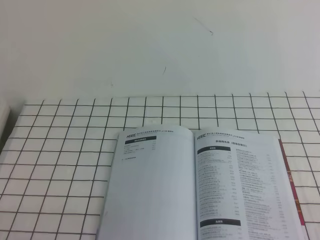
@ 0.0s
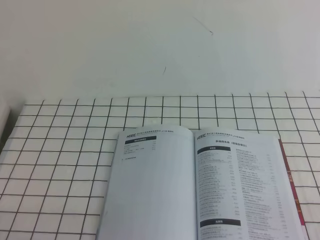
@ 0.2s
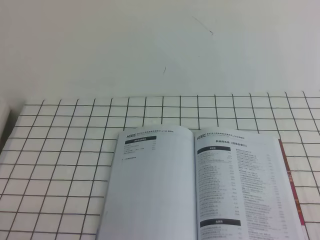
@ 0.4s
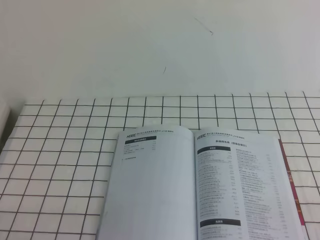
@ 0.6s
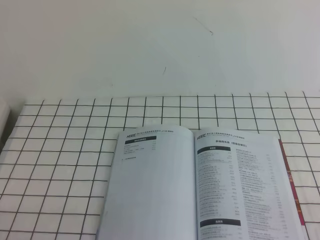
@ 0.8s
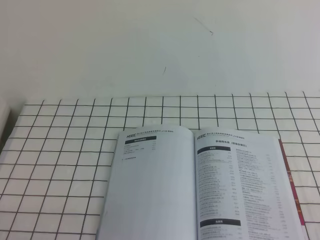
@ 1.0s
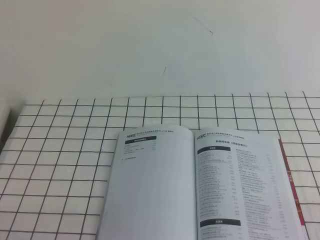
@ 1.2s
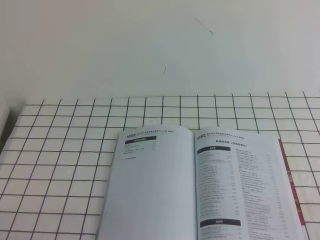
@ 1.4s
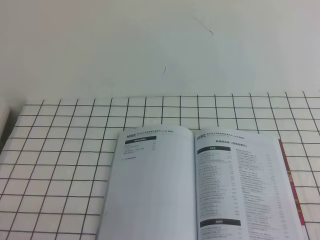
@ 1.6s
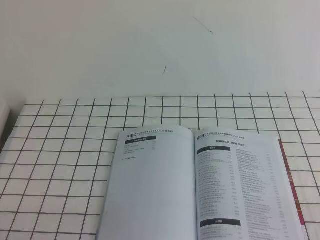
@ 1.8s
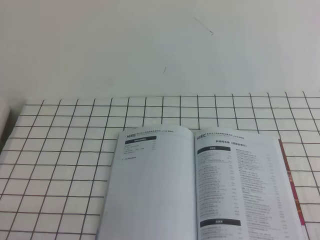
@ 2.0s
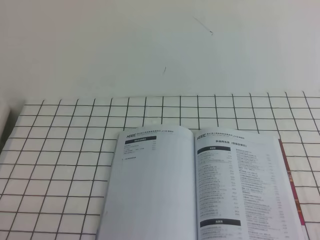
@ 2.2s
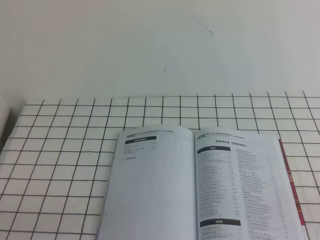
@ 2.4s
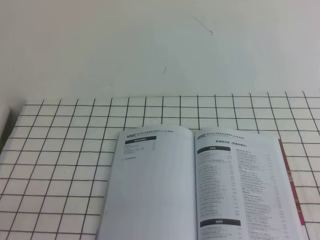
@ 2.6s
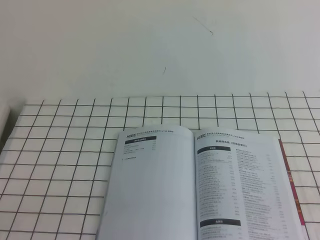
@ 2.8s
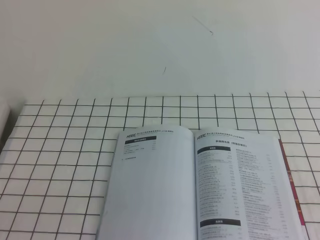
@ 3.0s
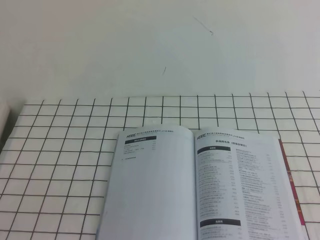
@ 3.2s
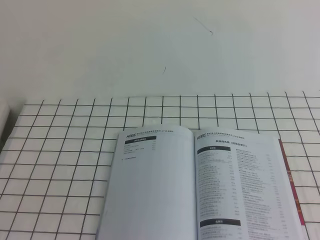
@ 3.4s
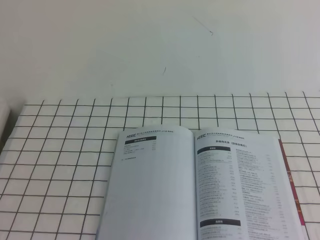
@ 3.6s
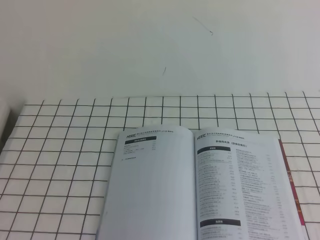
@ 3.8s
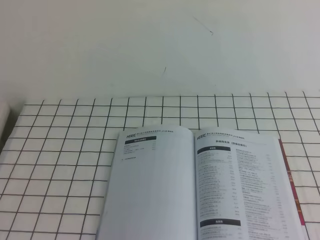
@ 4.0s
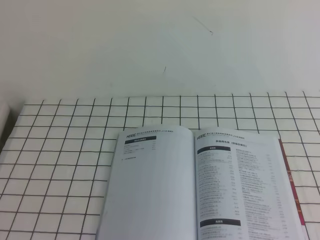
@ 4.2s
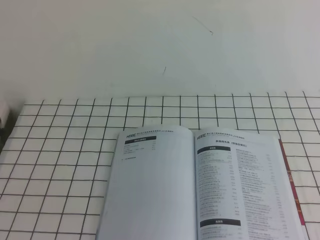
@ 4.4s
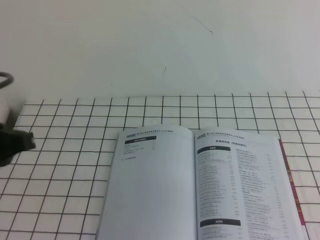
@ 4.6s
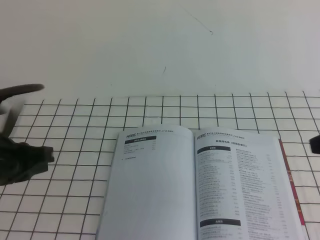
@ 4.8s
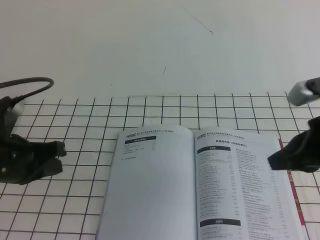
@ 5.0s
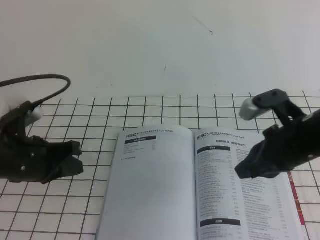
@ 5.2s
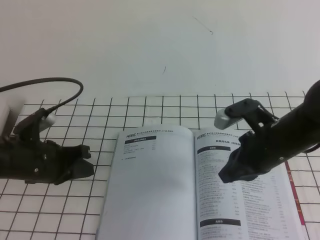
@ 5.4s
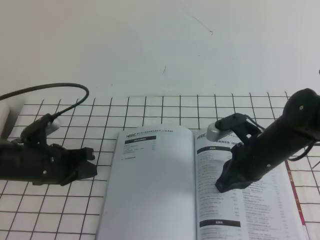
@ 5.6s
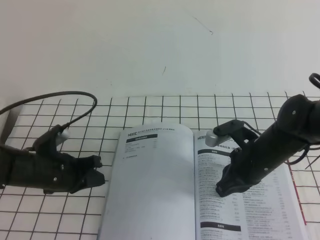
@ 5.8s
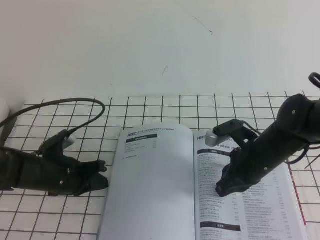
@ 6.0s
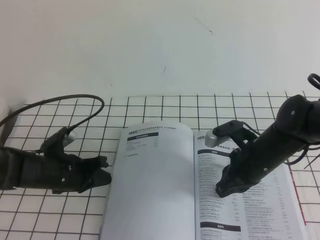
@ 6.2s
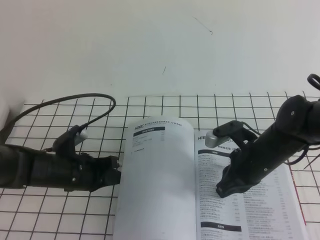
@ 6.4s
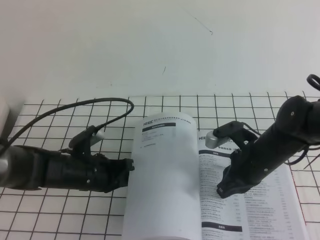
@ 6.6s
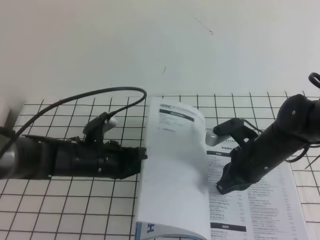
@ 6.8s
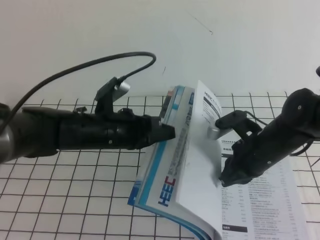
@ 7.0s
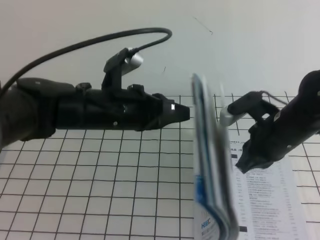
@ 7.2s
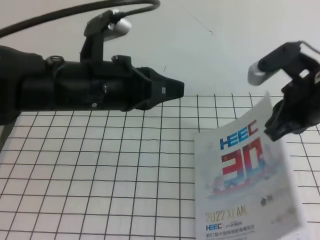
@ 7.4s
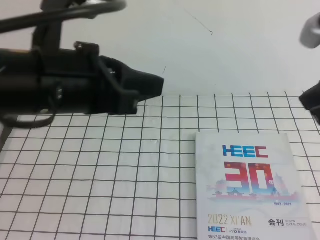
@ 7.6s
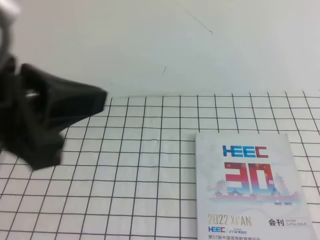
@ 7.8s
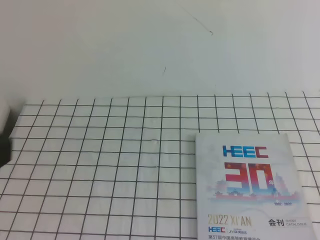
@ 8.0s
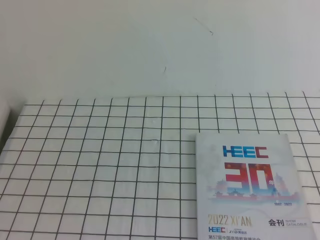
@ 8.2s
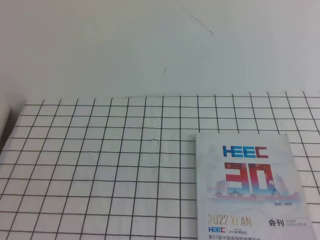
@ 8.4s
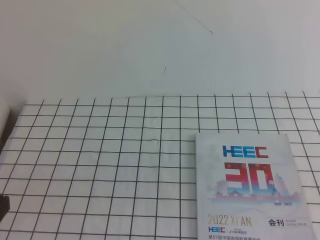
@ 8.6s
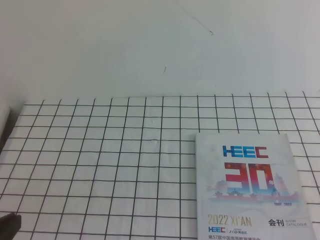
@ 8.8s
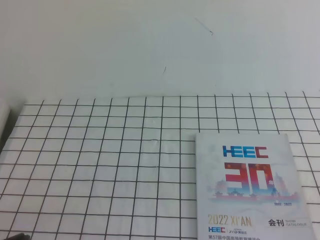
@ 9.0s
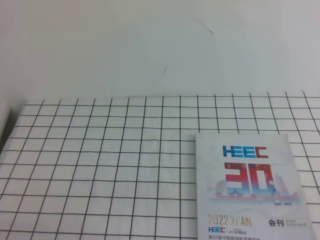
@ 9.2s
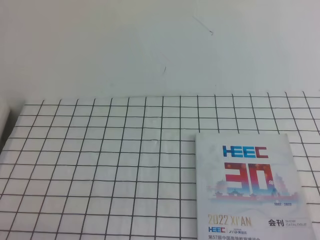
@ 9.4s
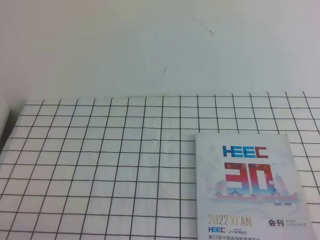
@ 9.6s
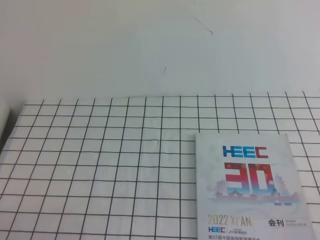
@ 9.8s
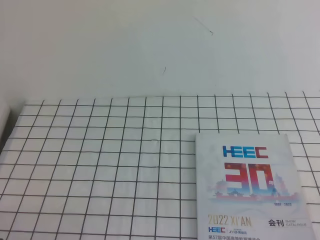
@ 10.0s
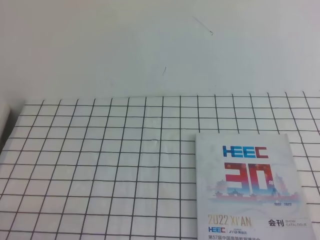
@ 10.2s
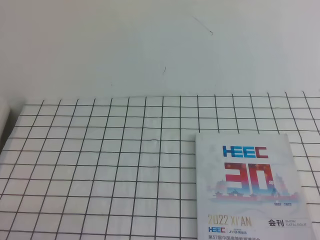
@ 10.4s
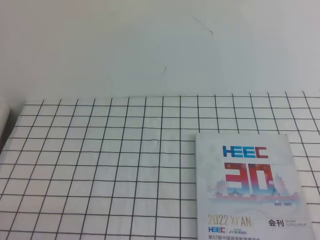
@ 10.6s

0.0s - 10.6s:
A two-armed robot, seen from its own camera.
Task of the whole recording: on the white tablecloth, hold the book with one hand and close it with the other.
0.0s - 1.6s: Both grippers stay put.
3.0s - 4.6s: The left gripper moves forward and upward, roughly 20 cm.
4.6s - 6.0s: The left gripper goes some 25 cm downward and forward. The right gripper moves downward, to the left and forward, about 30 cm.
6.0s - 7.6s: Both grippers move upward, about 25 cm.
7.6s - 9.0s: The right gripper heads backward, downward and to the right, covering some 20 cm; the left gripper moves downward, backward and to the left, about 25 cm.

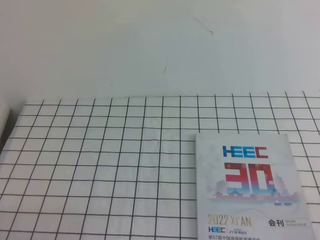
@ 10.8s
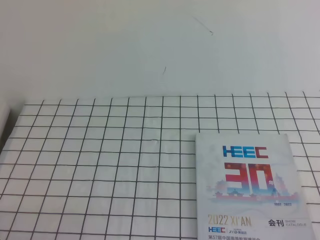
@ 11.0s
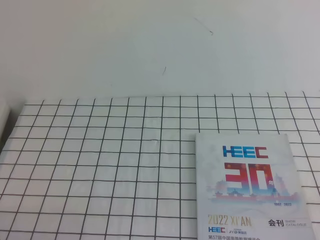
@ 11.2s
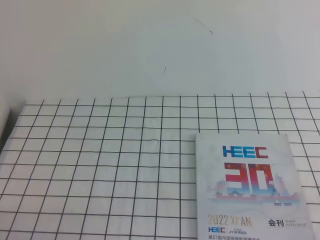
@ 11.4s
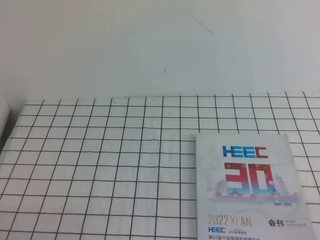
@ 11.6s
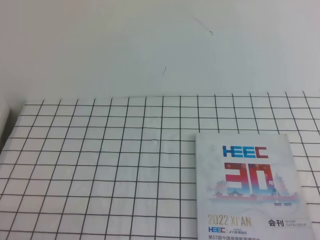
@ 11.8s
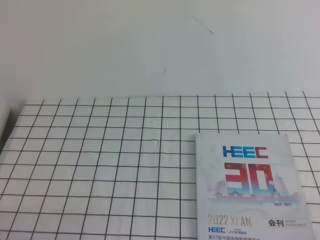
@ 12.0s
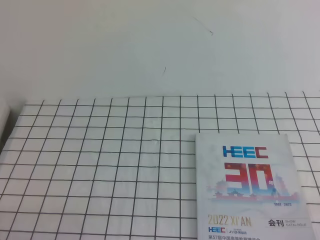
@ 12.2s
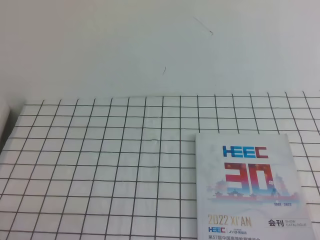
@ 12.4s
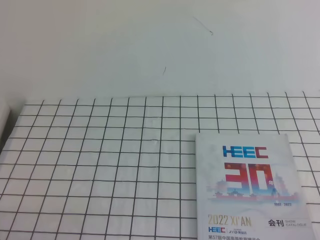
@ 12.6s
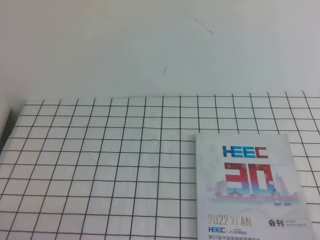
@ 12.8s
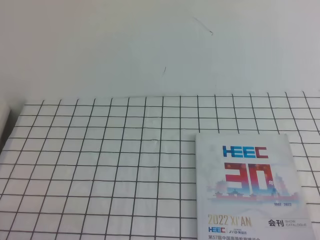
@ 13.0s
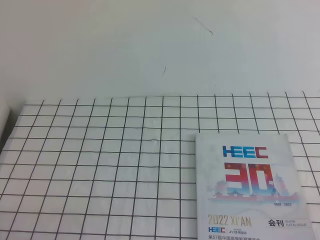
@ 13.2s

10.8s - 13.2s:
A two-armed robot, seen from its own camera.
Task of the whole recording: on the white tablecloth, hold the book with one hand and close it with the other.
12.0s - 13.2s: Neither gripper changes place.

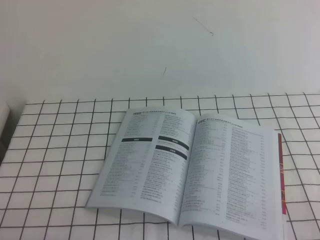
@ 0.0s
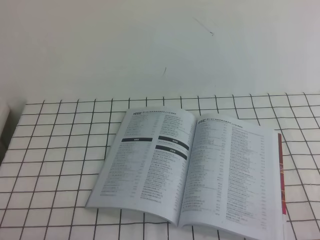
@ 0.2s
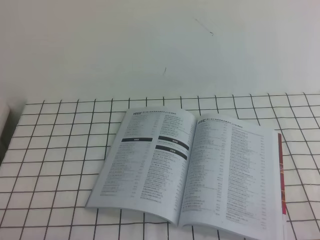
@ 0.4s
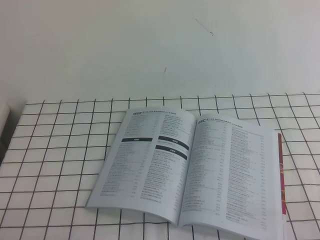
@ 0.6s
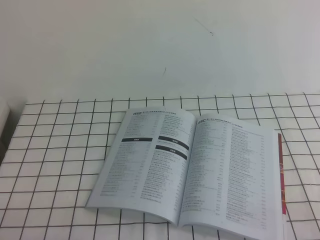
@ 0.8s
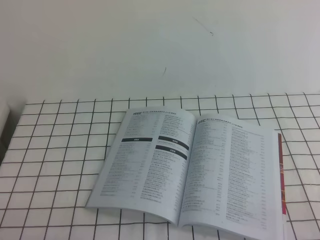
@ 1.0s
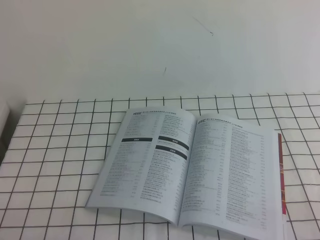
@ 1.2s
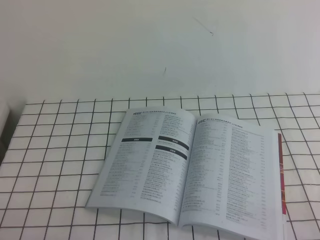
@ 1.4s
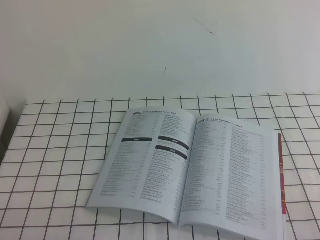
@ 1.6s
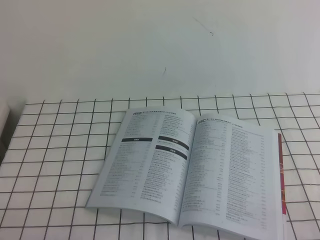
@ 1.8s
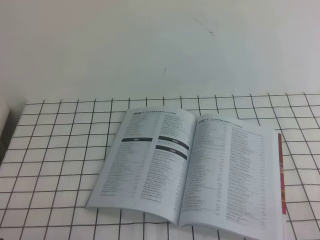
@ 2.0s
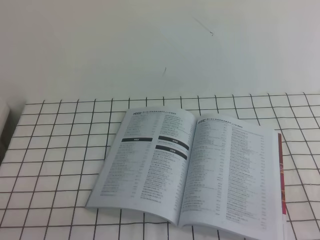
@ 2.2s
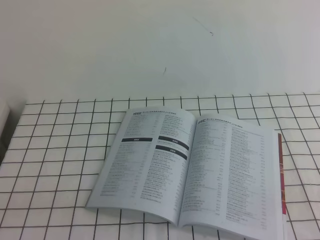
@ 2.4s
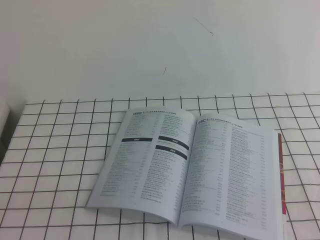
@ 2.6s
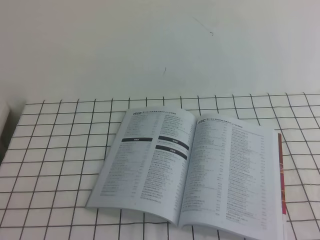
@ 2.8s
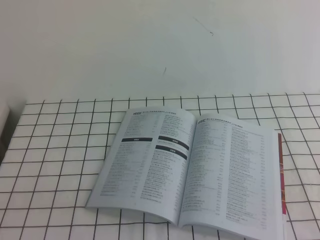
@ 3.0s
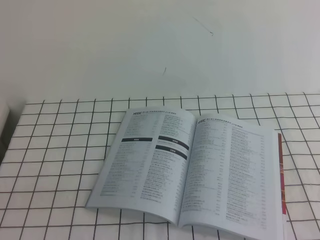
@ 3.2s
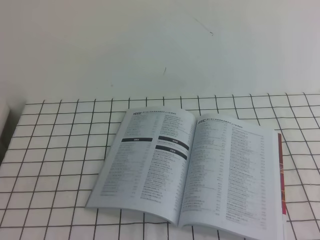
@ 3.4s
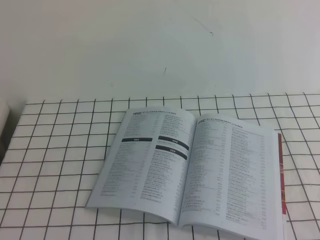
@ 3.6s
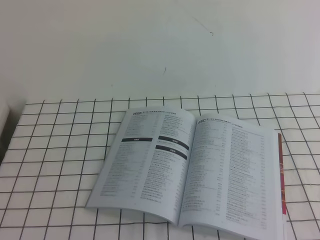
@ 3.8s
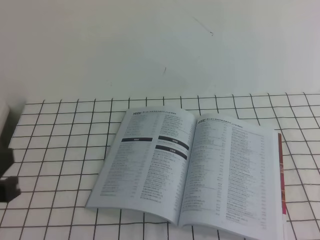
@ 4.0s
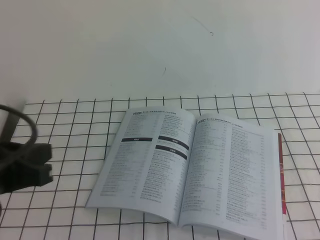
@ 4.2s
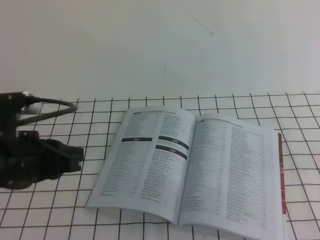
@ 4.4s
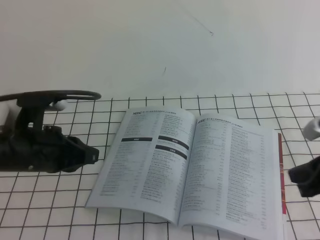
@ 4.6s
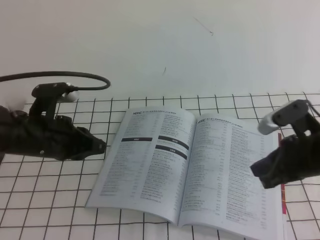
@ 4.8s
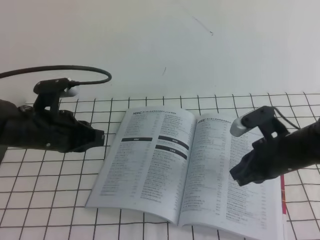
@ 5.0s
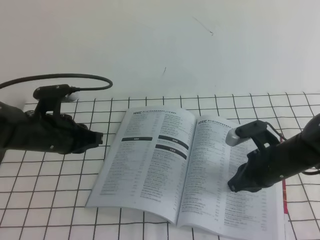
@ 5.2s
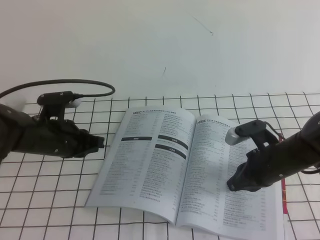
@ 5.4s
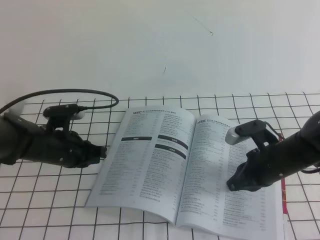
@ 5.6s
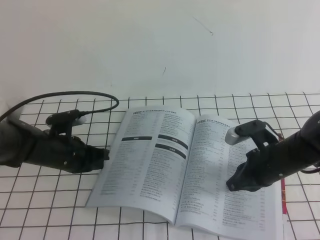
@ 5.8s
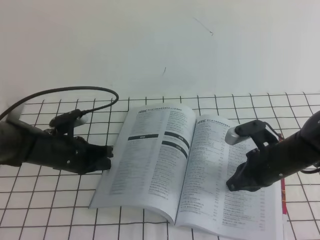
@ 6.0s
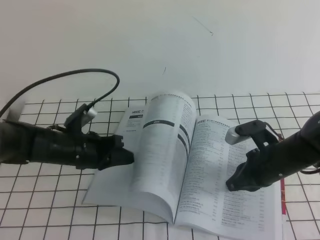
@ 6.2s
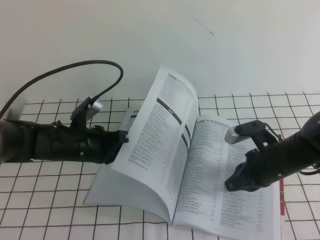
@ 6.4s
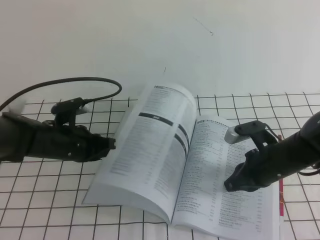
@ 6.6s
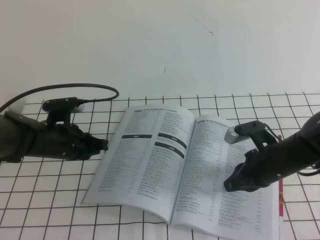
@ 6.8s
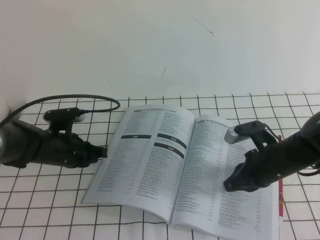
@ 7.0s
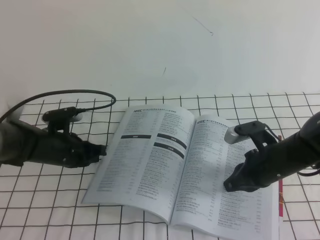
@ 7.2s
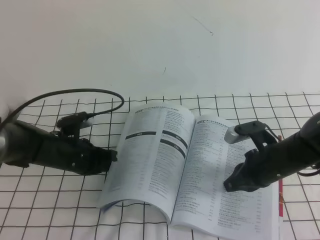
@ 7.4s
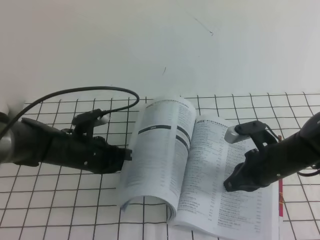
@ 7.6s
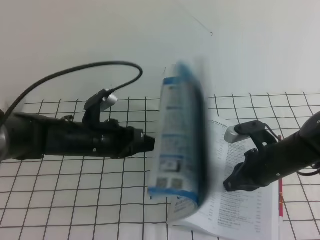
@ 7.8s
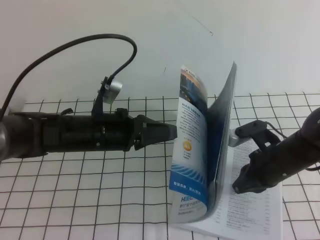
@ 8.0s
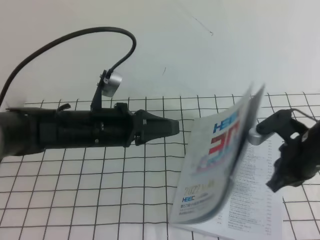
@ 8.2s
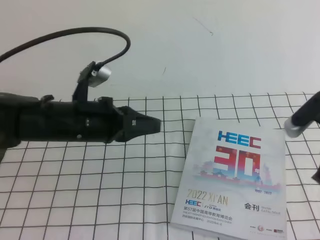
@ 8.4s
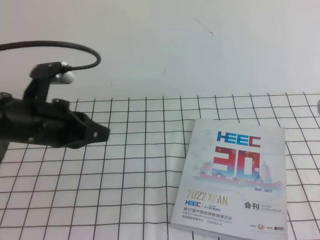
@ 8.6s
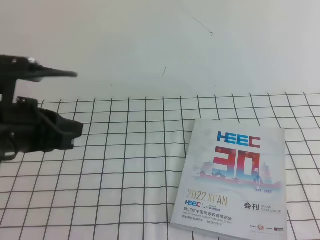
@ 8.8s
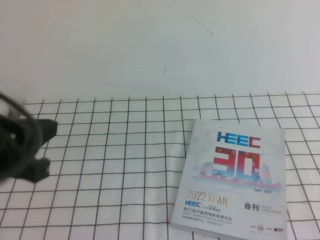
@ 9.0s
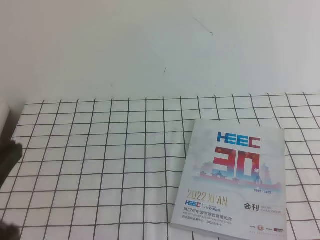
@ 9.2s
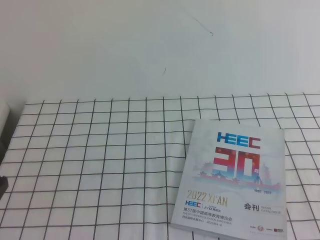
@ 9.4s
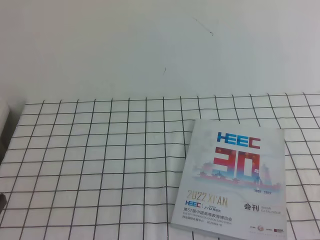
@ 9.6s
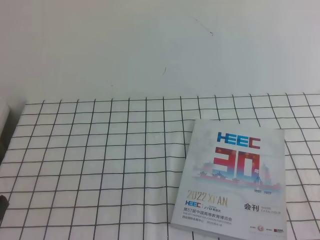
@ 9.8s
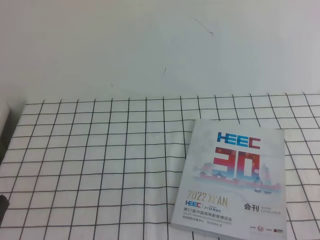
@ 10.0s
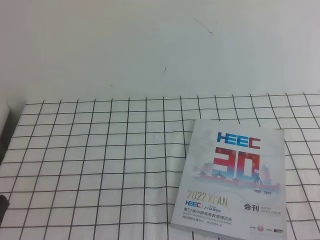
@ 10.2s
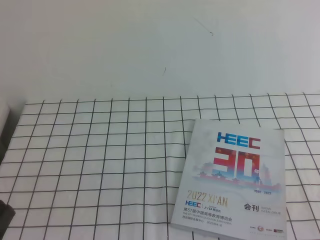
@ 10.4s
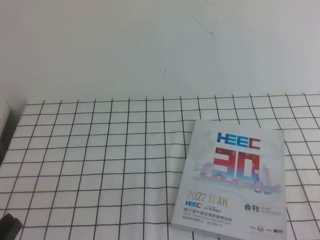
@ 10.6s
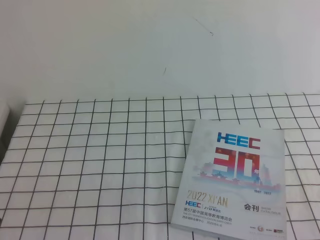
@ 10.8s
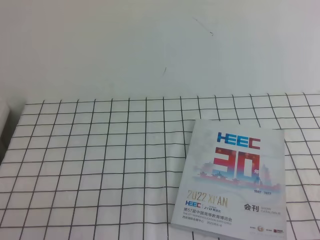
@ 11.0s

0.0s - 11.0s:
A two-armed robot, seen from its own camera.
Task of the whole recording: on the white tablecloth, hold the book with one hand and close it with the other.
0.0s - 1.6s: Both grippers stay about where they are.
3.2s - 4.8s: The left gripper travels forward by some 25 cm, while the right gripper is displaced forward and downward by roughly 25 cm.
4.8s - 6.2s: The two grippers go approximately 10 cm downward and forward.
6.2s - 7.8s: The left gripper heads to the right, covering approximately 5 cm.
7.8s - 9.4s: The right gripper goes some 35 cm backward, upward and to the right. The left gripper travels backward and upward by approximately 30 cm.
